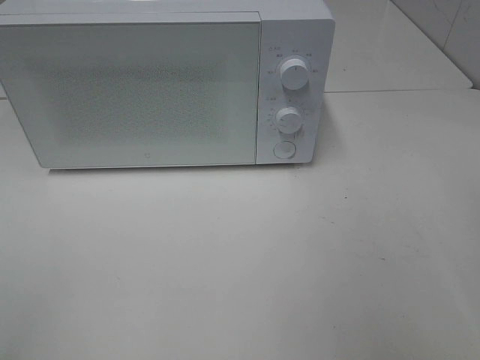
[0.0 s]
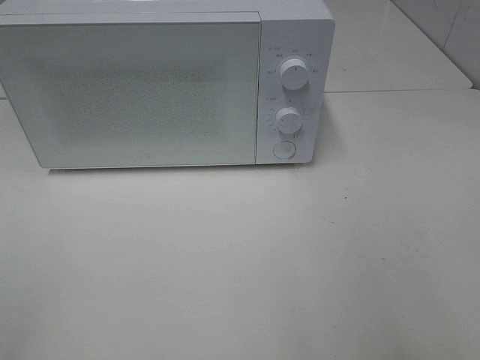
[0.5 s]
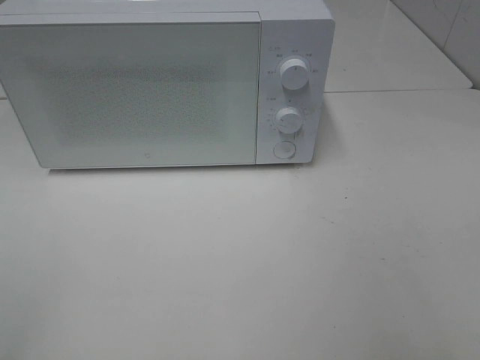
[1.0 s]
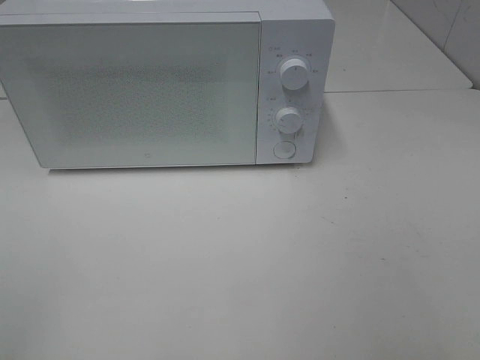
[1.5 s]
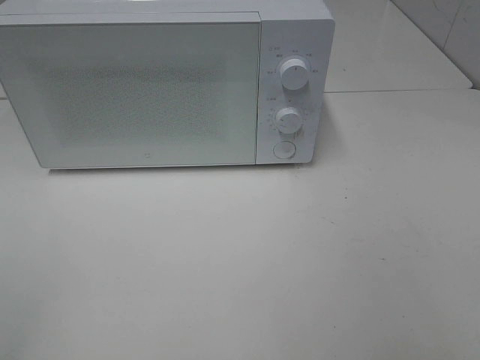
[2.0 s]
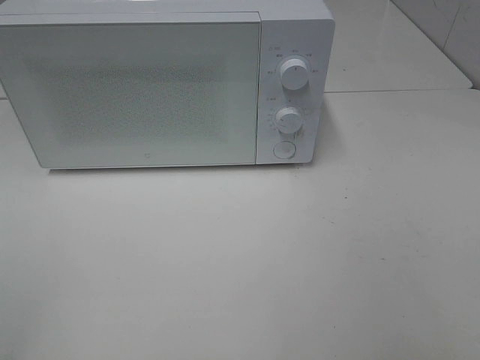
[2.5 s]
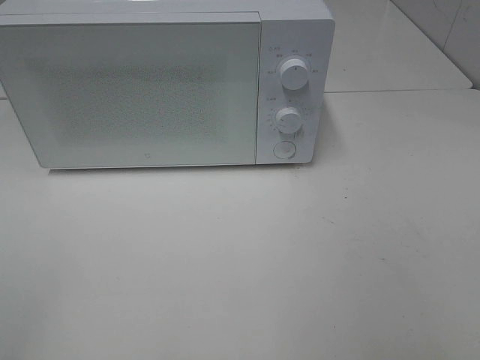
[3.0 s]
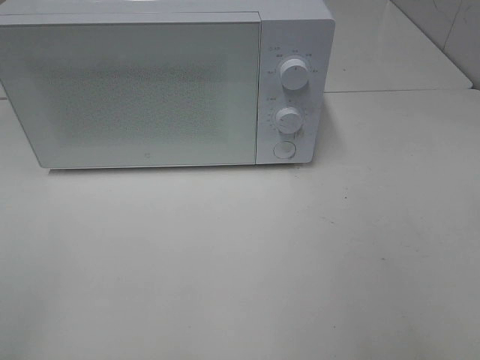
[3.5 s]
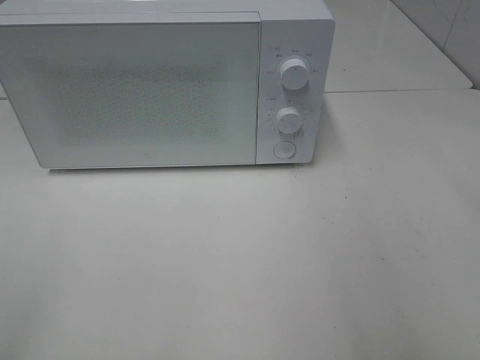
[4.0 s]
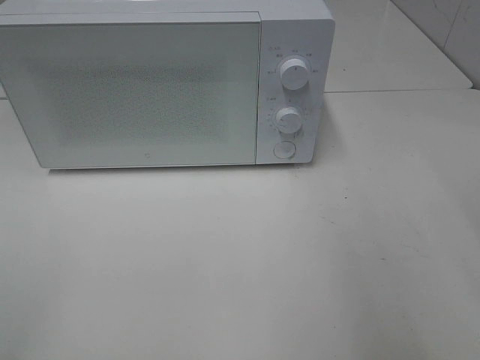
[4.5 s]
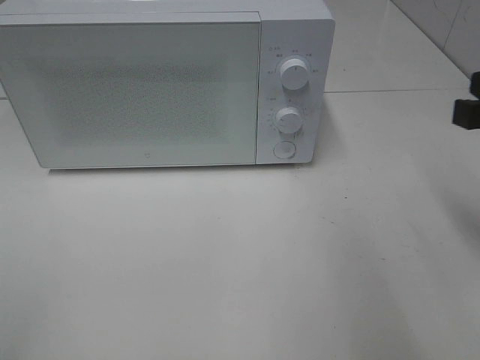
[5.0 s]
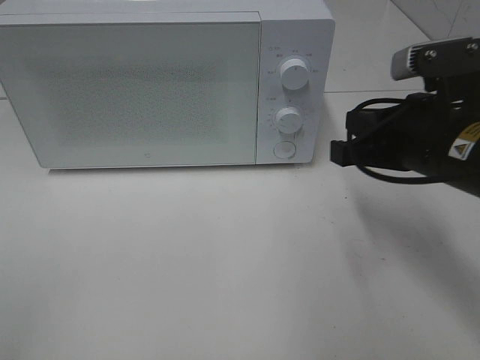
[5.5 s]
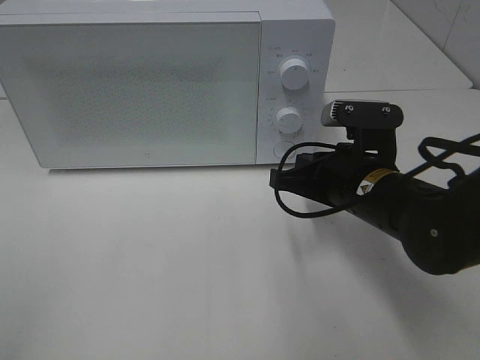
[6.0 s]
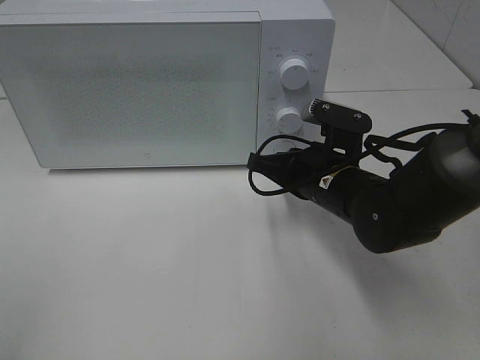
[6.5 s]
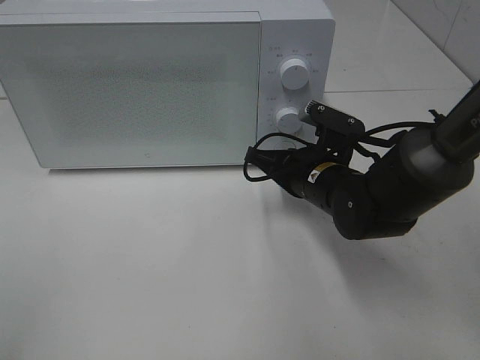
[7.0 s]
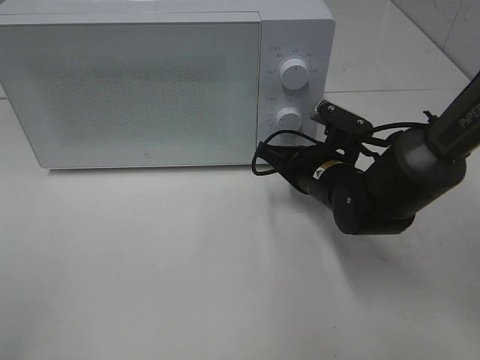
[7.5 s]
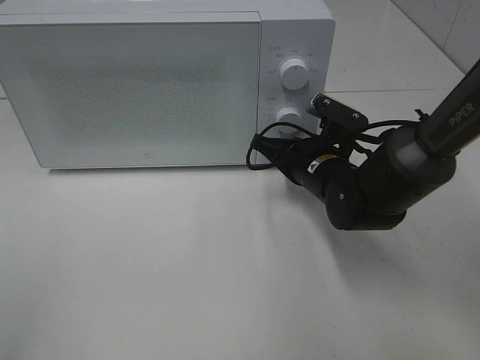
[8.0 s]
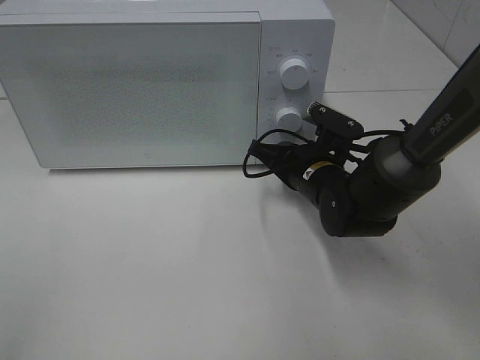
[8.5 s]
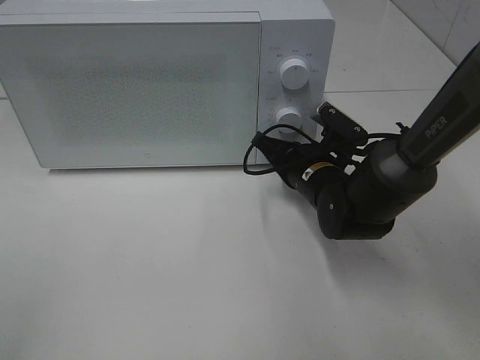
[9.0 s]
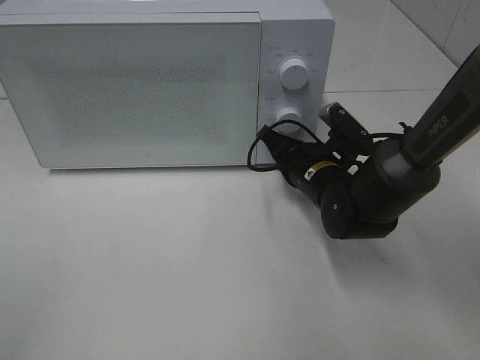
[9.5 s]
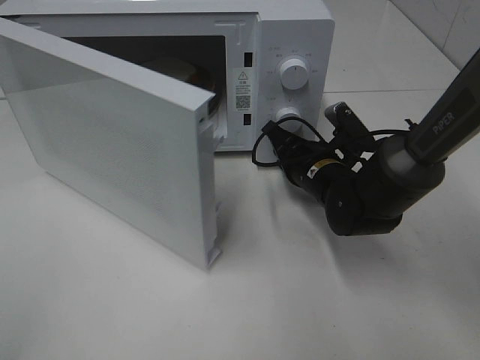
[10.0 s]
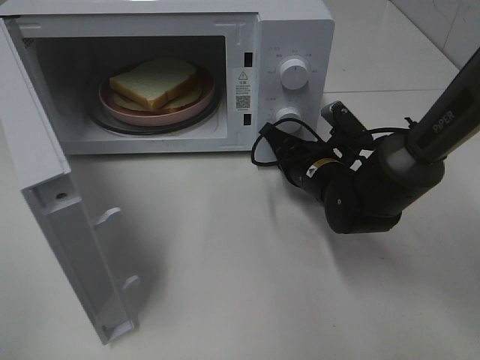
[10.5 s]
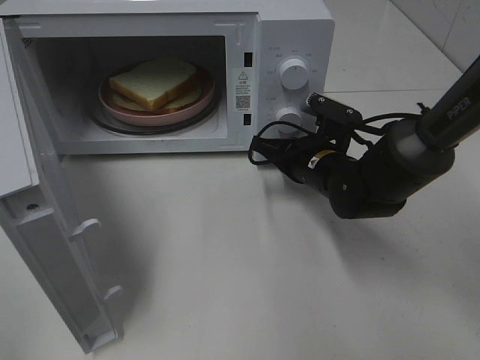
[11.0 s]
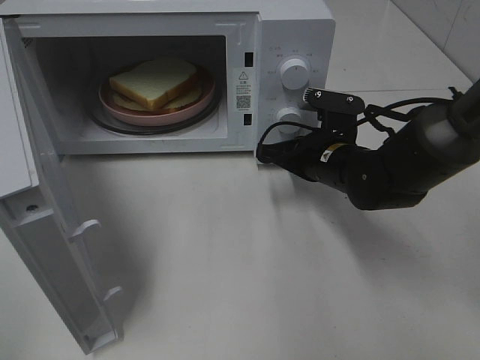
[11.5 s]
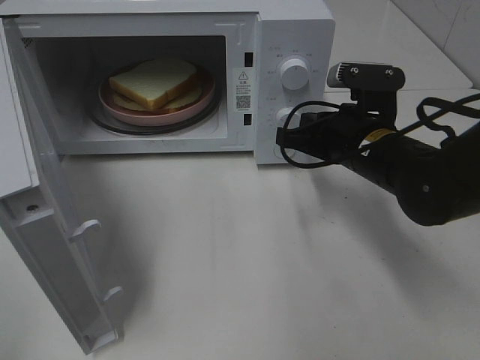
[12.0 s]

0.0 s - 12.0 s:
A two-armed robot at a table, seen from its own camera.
Task of the whole recording: Heat Sandwich.
4.0 s - 6.0 s: The right gripper is displaced downward, forward and to the left by some 30 cm, and closes.
6.0 s - 8.0 s: The right gripper goes approximately 10 cm forward.
10.0 s - 12.0 s: The right gripper goes roughly 5 cm upward.

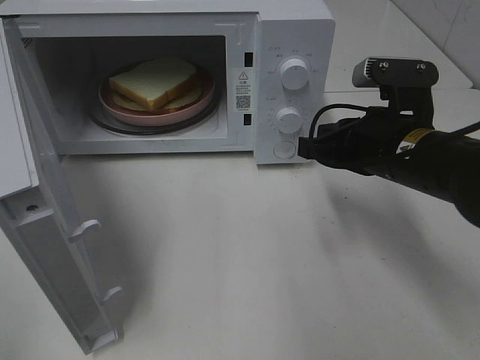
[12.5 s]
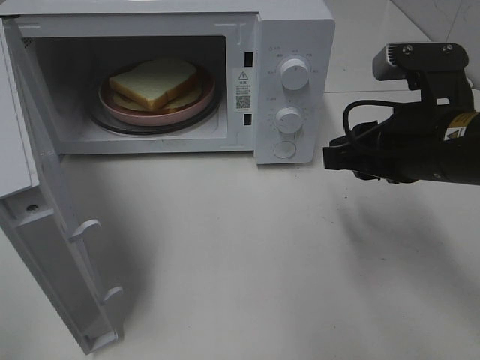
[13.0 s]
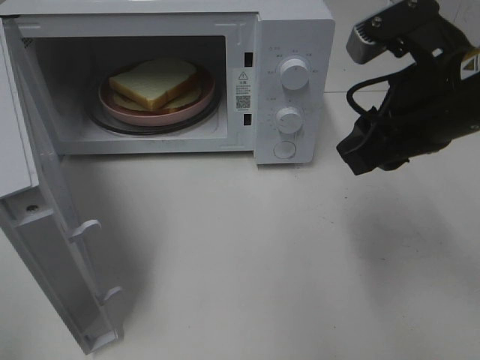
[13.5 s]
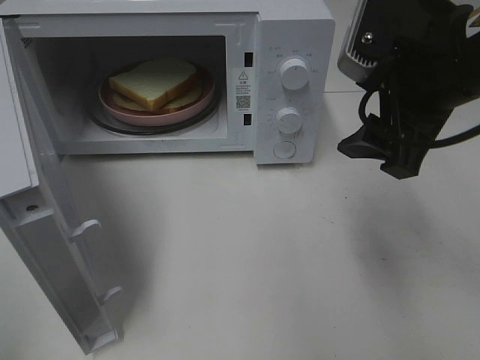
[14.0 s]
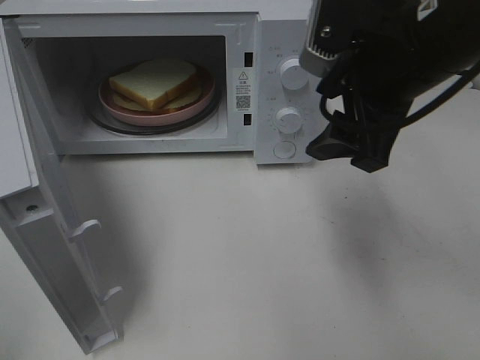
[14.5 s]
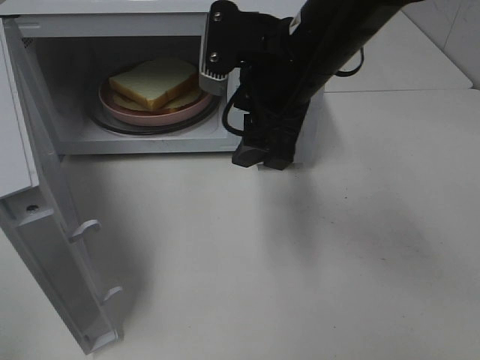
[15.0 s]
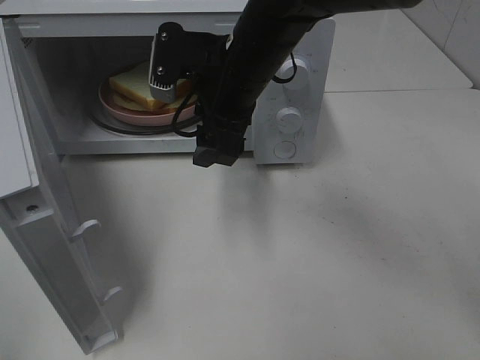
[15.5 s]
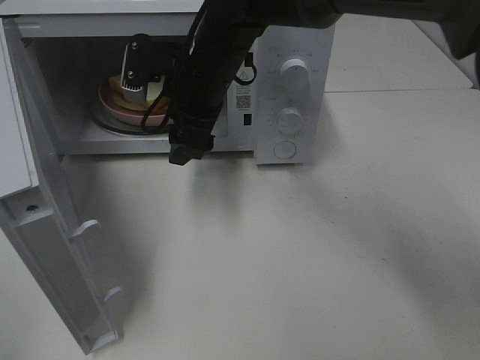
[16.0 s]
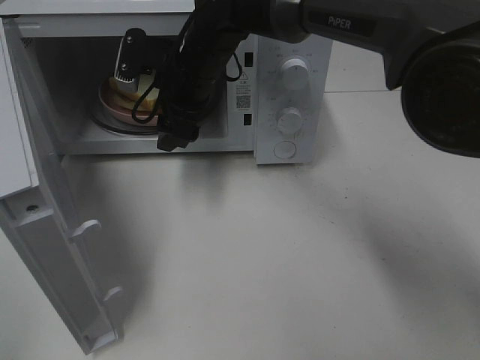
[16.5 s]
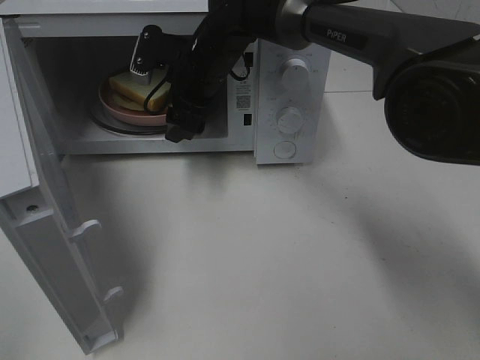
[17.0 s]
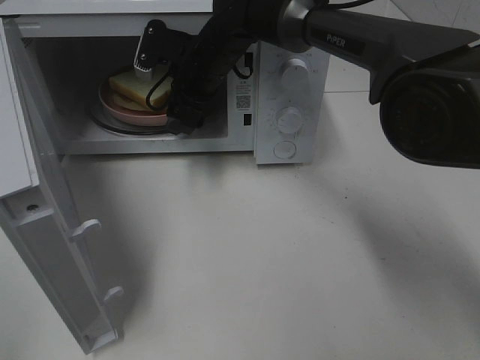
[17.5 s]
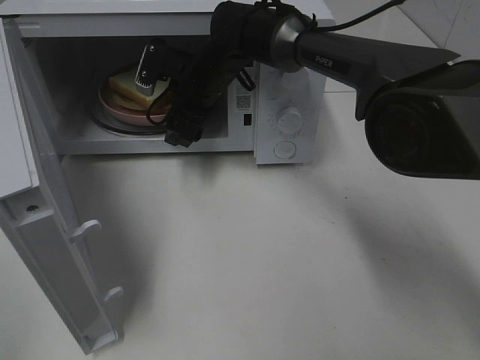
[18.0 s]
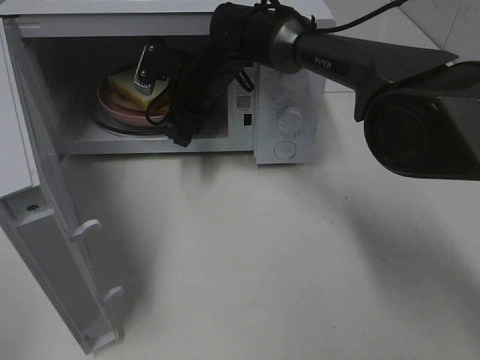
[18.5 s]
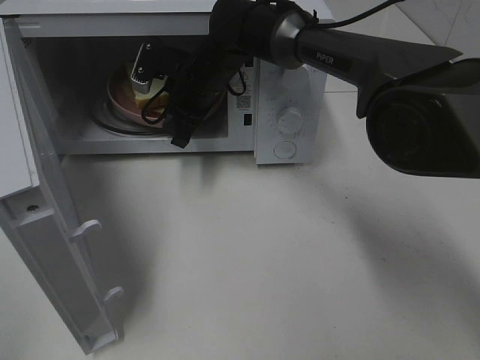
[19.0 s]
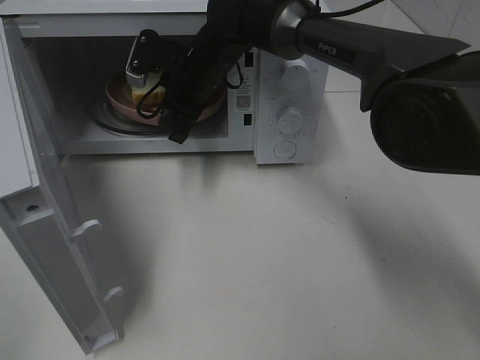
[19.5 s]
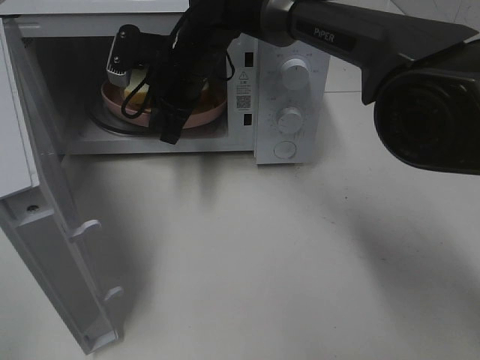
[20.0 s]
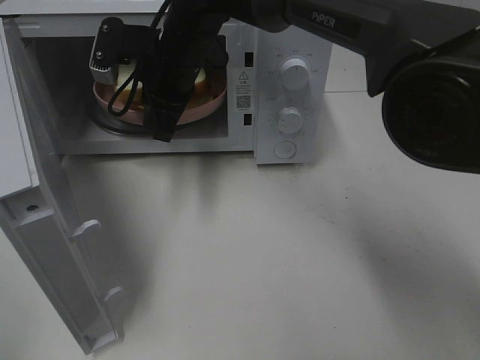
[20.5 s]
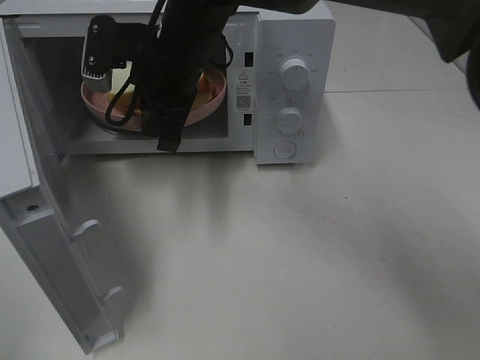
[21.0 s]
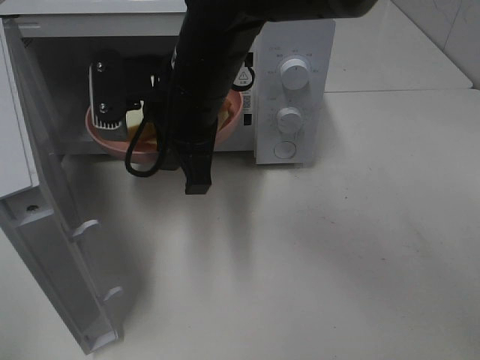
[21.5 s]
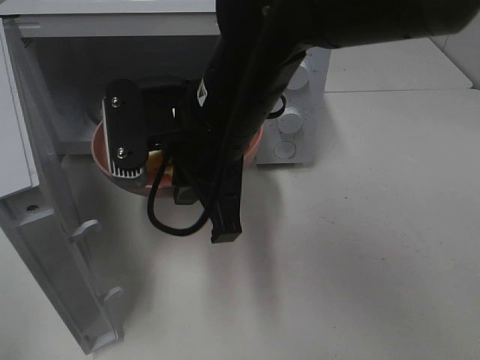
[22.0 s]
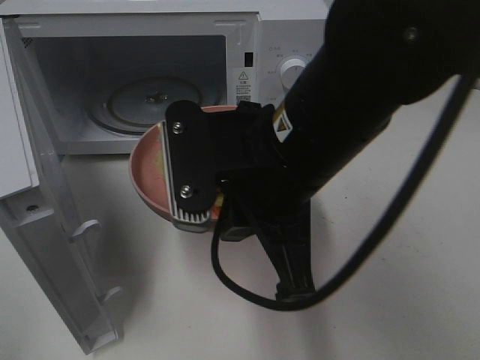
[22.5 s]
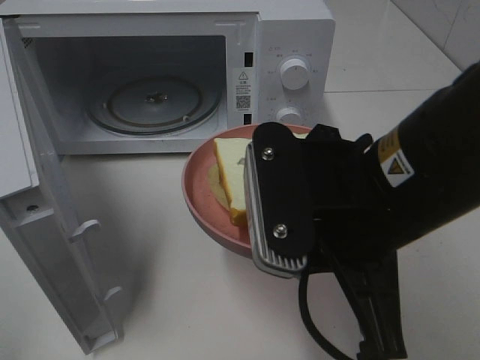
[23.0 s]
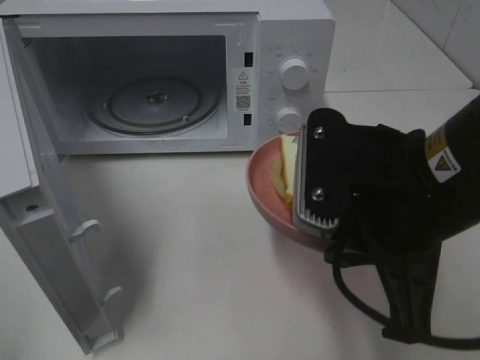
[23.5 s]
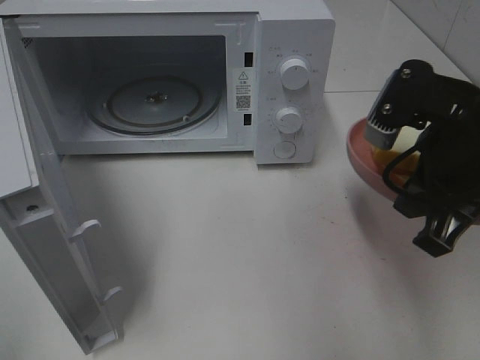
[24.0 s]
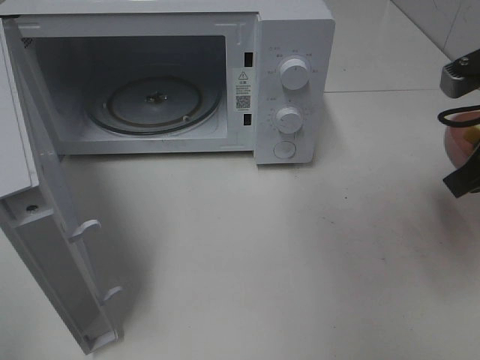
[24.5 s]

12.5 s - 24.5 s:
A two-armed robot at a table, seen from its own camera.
Task of the whole recording: Heat Sandwich.
Step, 12.5 s - 19.5 s: Right hand: grab the plate with the sandwich.
12.5 s - 14.5 s: The right gripper is displaced upward by roughly 10 cm, and opens up.
14.5 s - 16.5 s: The right gripper is displaced to the left, forward and downward by some 25 cm.
16.5 s - 18.5 s: The right gripper shifts by roughly 5 cm.
18.5 s - 20.5 s: The right gripper goes about 10 cm upward and backward, and closes its fingers.
20.5 s - 22.5 s: The right gripper moves backward and to the right, some 25 cm.
22.5 s - 24.5 s: The right gripper goes approximately 20 cm to the right.

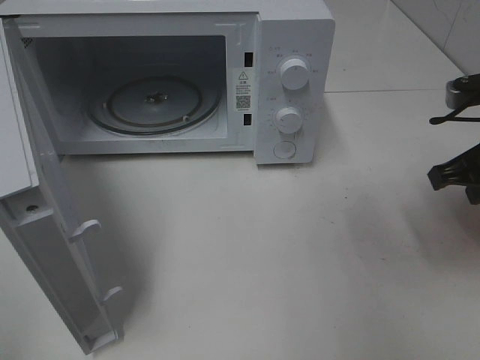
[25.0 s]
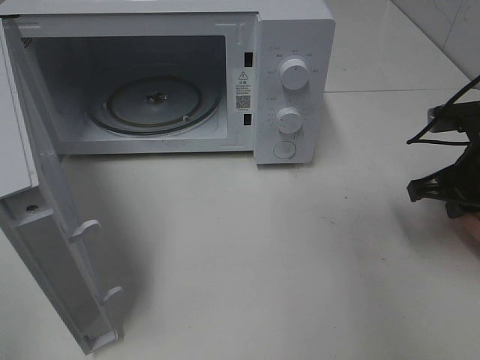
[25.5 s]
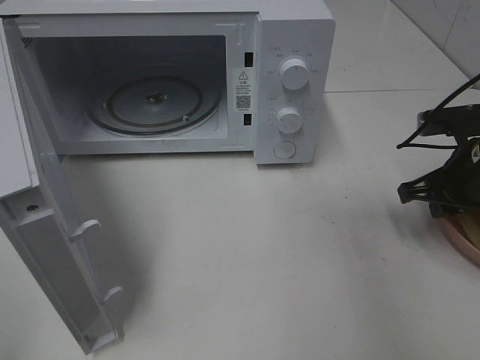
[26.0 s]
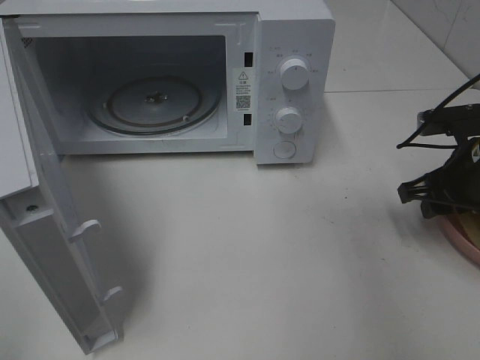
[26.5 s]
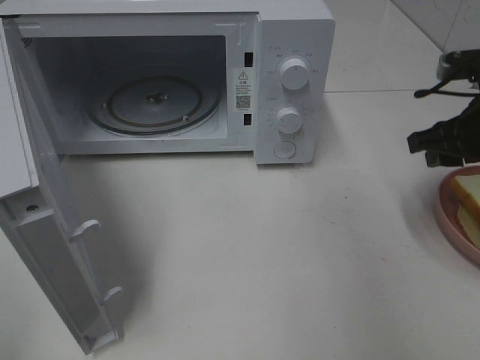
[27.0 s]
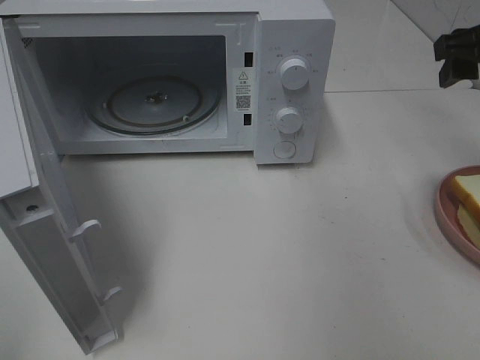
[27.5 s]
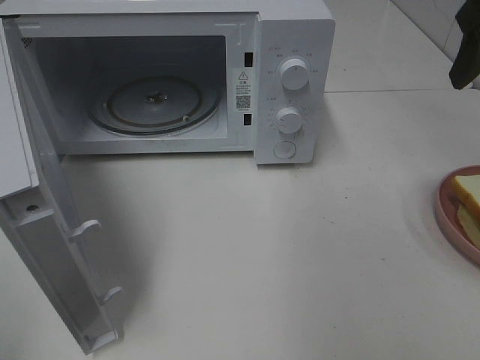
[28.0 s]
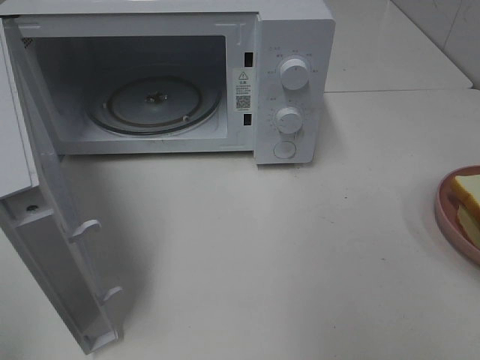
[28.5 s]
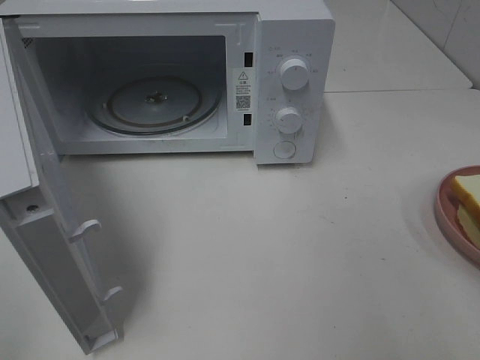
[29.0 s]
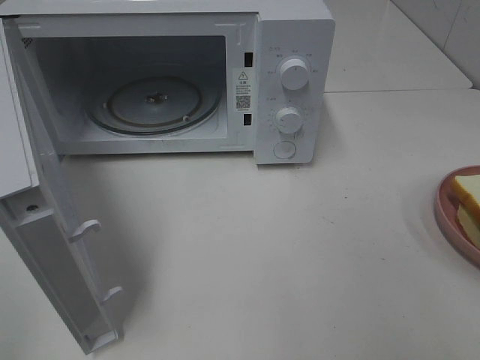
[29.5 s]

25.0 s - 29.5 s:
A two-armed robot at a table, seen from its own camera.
Task of the whole recording: Heat Sandwich.
Step, 25.0 s - 27.5 s: Right hand: place the plate on the table.
25.0 s - 27.0 s: The right gripper opens up.
27.0 s - 29.5 s: The right gripper moves backward, about 25 cm.
